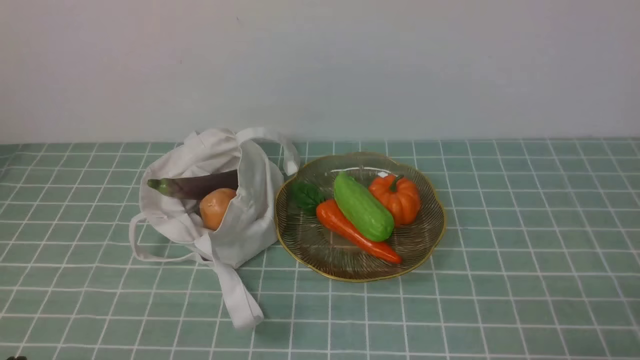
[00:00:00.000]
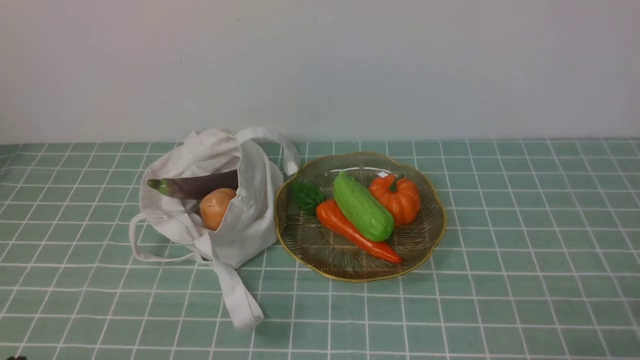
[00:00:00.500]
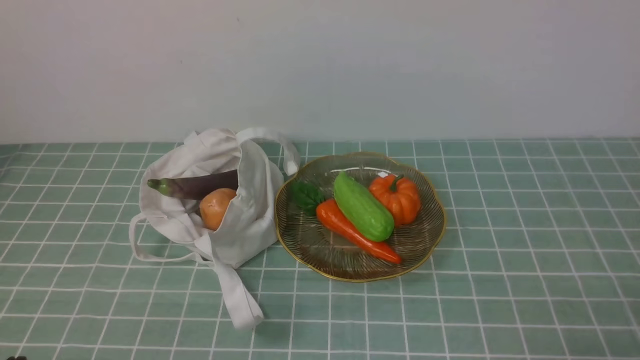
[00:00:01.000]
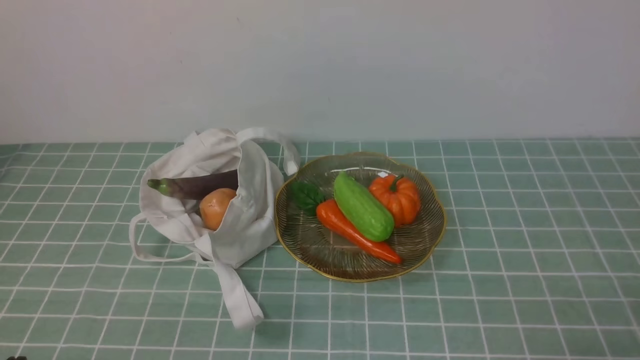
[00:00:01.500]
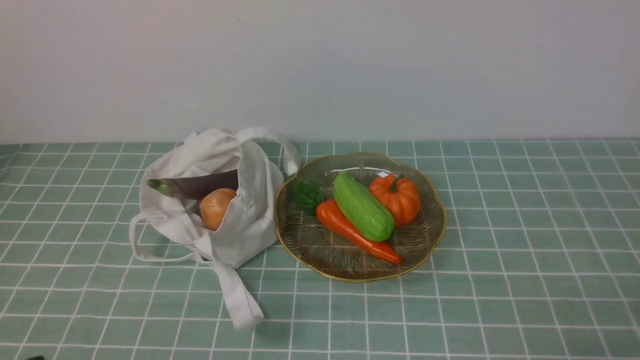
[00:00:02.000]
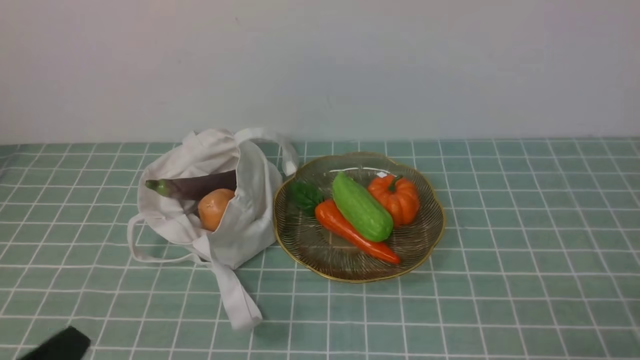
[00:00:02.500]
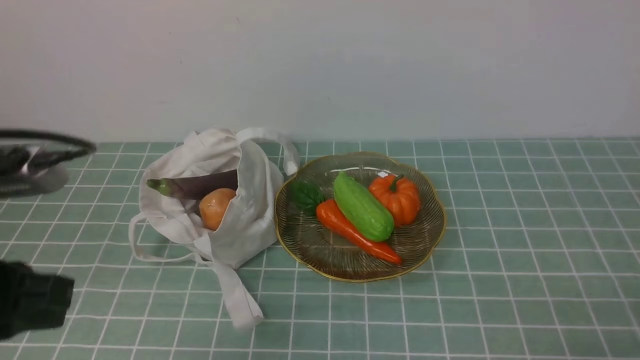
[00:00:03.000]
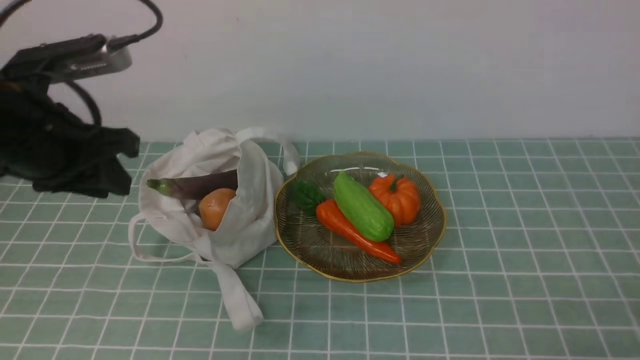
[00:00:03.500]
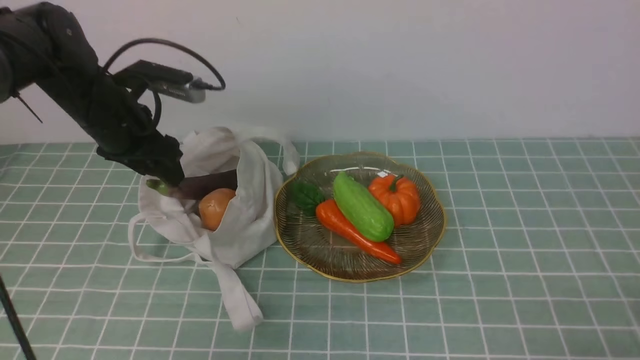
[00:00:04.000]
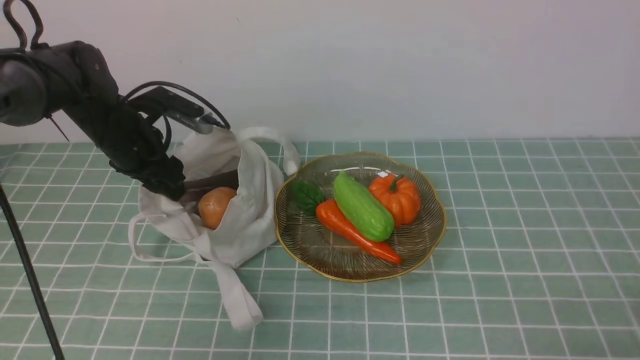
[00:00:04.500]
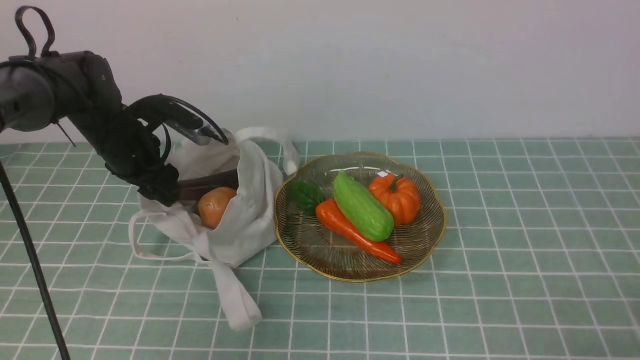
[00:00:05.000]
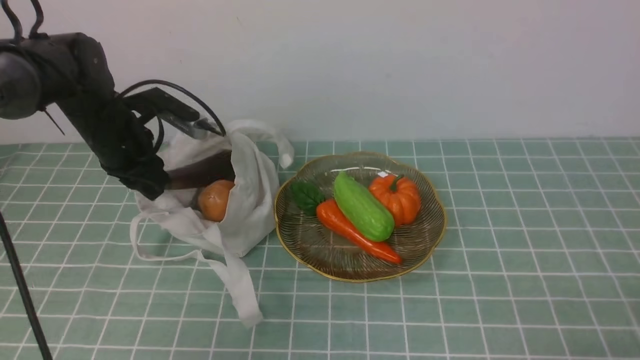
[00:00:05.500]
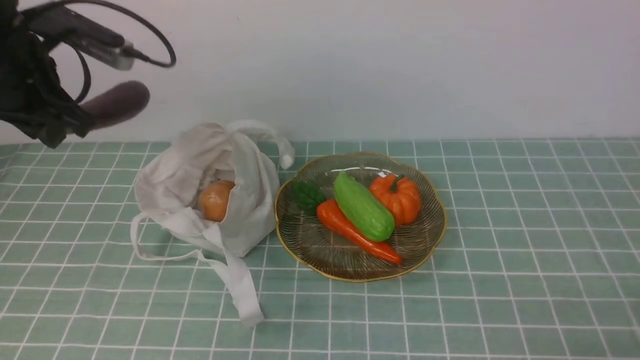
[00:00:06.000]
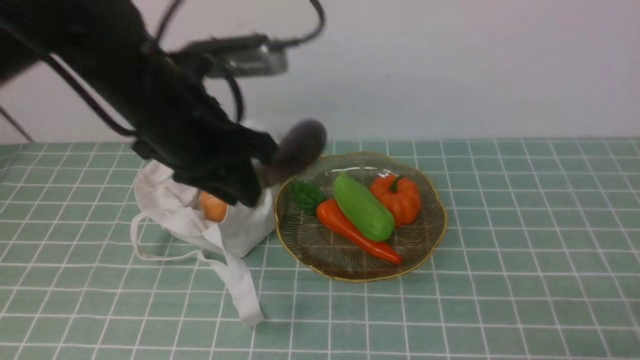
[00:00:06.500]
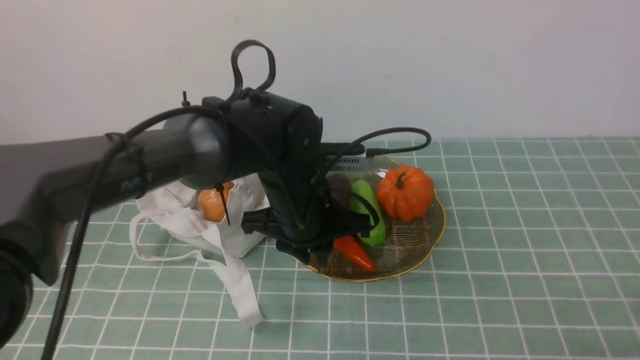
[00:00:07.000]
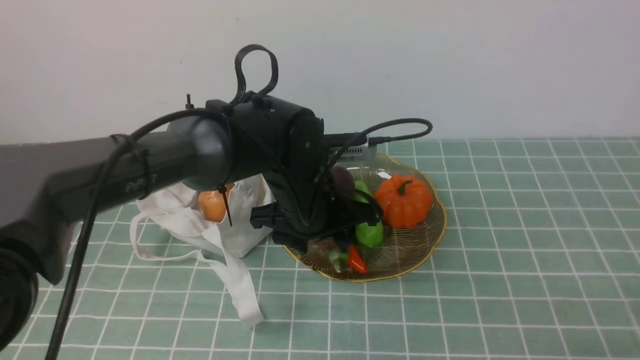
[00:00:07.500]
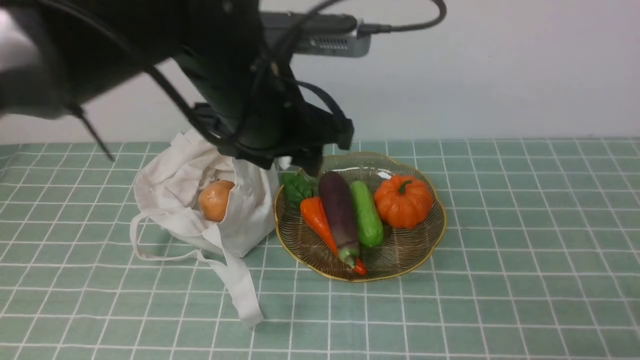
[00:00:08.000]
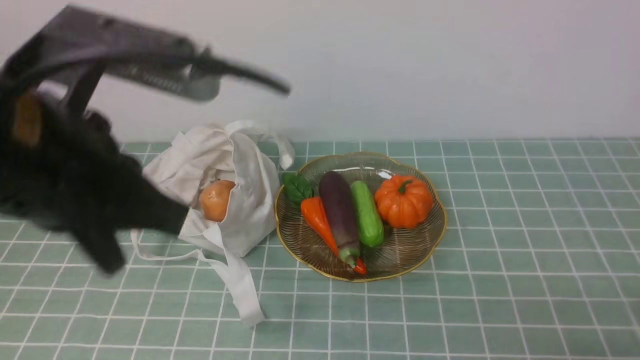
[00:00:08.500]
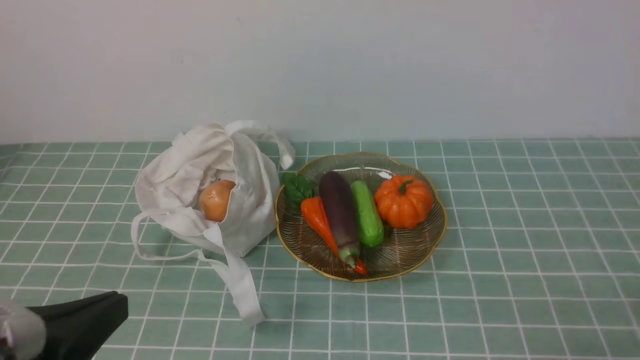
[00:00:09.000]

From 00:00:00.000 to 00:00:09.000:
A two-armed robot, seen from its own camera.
Task of the whole recording: take vegetables from cloth bag on blue coffee tablecloth place on plate.
Step, from 00:00:00.000 to 00:00:05.000: Grasp the eggplant with left gripper.
Step, from 00:00:05.500 to 00:00:07.500: Place the eggplant on the plate with left gripper.
From 00:00:02.000 to 00:00:04.500: The left gripper heads forward, covering about 40 cm, and opens its fingers.
From 00:00:04.500 to 00:00:07.000: The left gripper moves to the right and backward, roughly 25 cm, and closes up.
From 00:00:07.000 to 00:00:09.000: The left gripper is displaced backward and to the left by approximately 30 cm, and opens, then closes again.

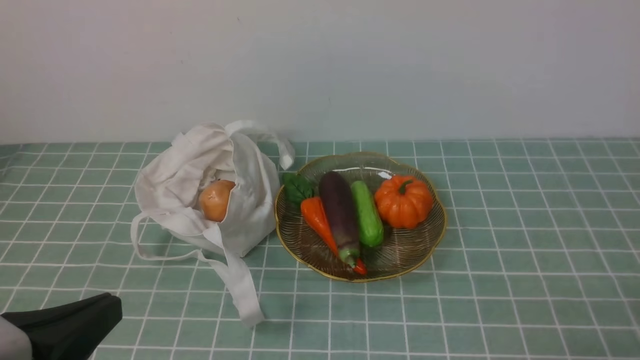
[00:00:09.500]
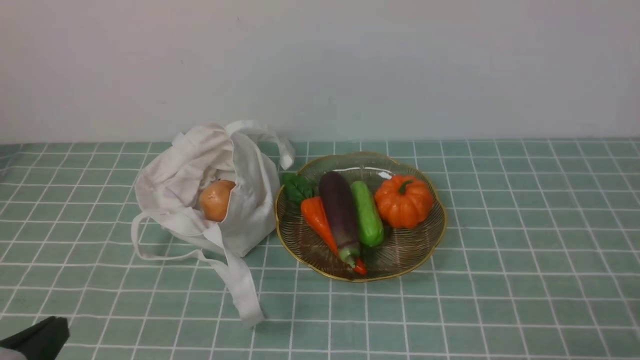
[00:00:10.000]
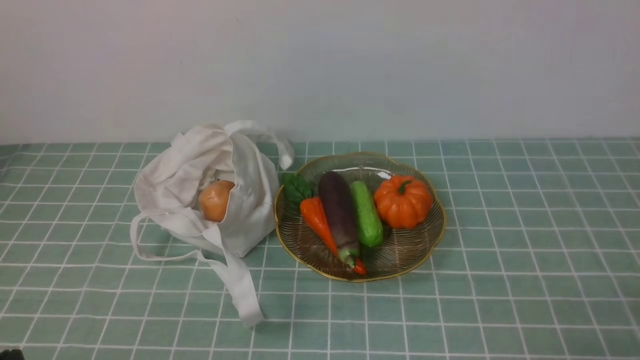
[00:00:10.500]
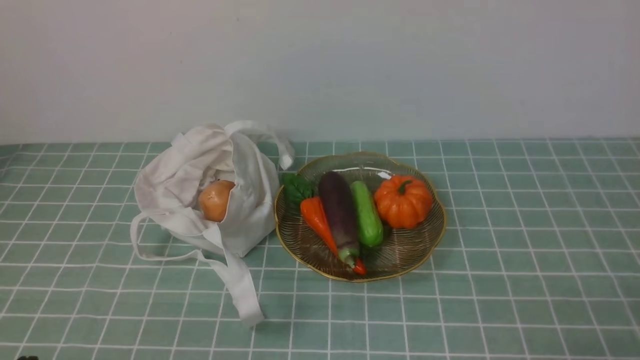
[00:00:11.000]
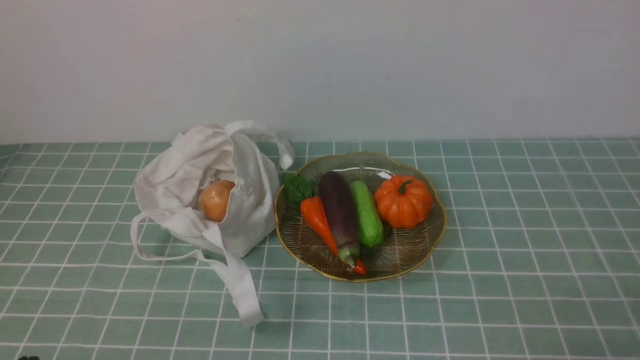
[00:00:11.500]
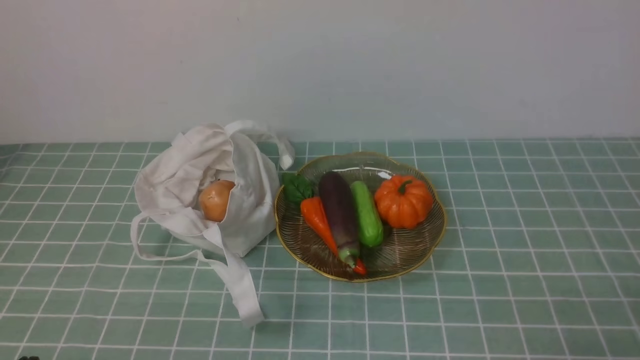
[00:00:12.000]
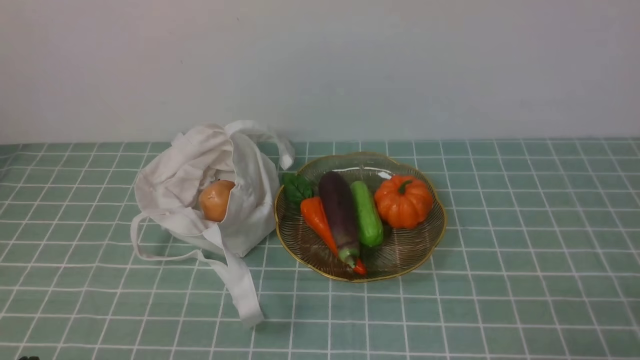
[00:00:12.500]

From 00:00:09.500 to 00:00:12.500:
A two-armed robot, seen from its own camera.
Task of the whole recording: take vegetables from cloth bag on blue coffee tablecloth place on plate.
From 00:00:09.500 to 00:00:11.000: The left gripper goes some 10 cm downward.
From 00:00:11.000 to 00:00:12.500: Neither gripper changes place.

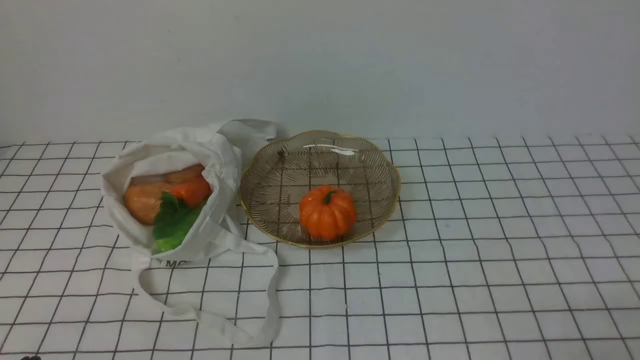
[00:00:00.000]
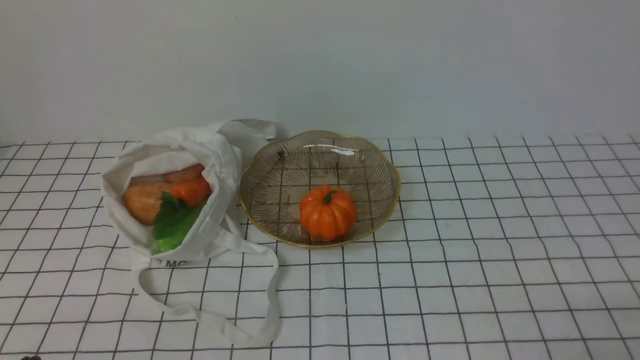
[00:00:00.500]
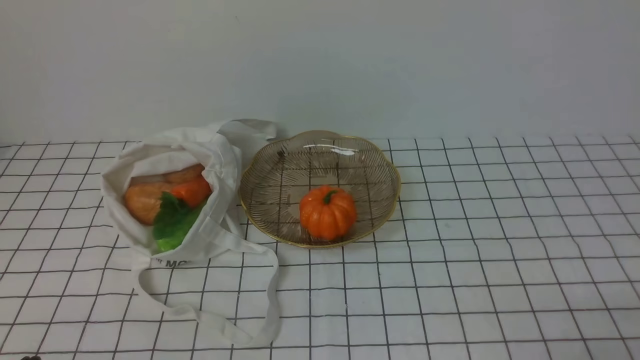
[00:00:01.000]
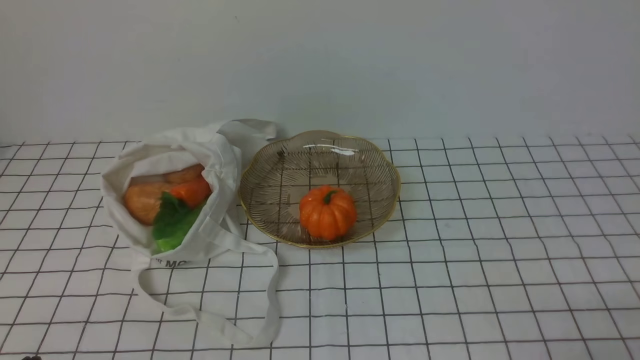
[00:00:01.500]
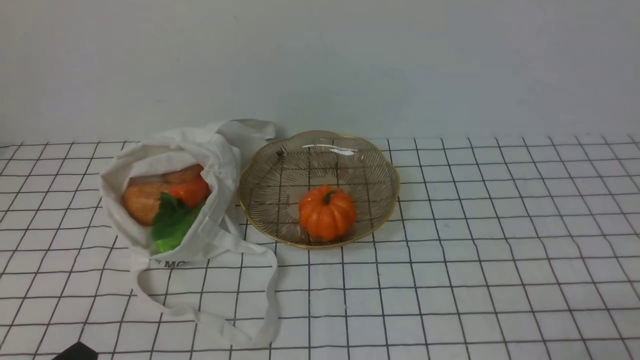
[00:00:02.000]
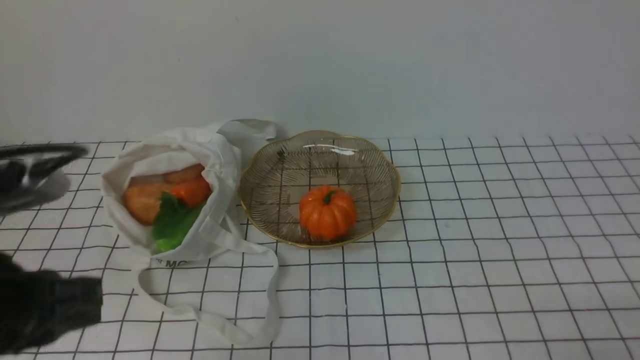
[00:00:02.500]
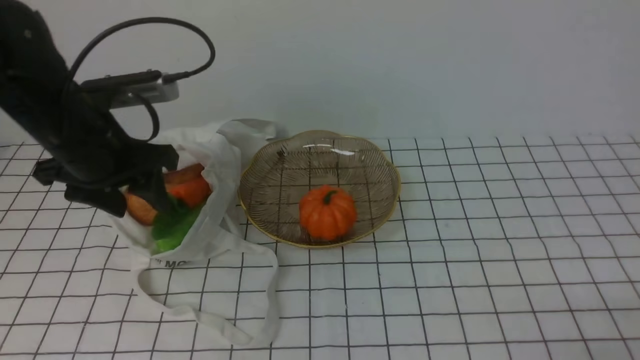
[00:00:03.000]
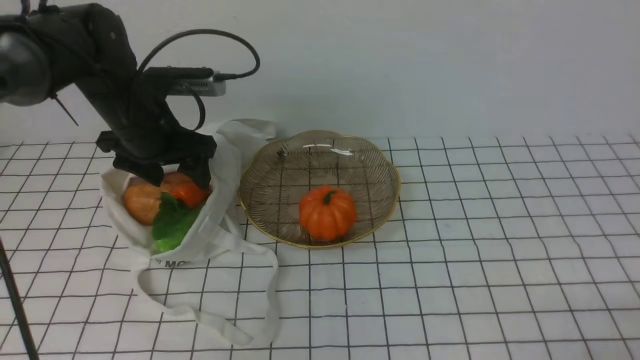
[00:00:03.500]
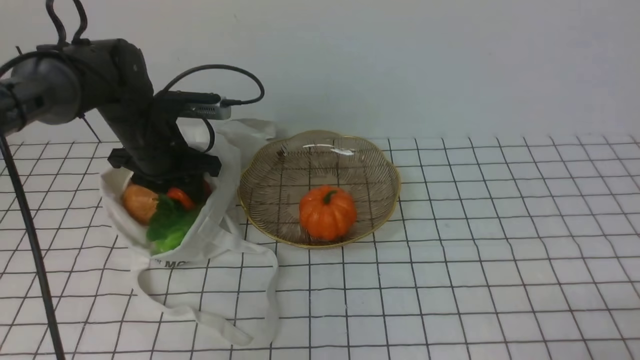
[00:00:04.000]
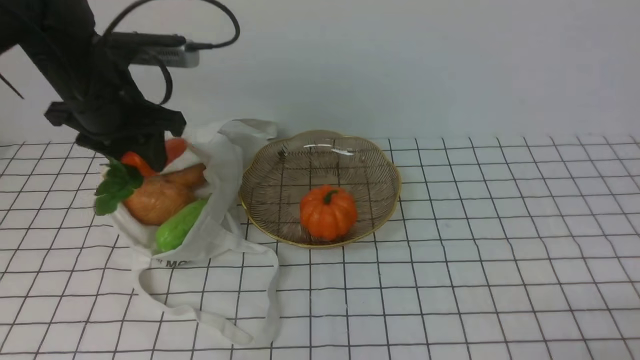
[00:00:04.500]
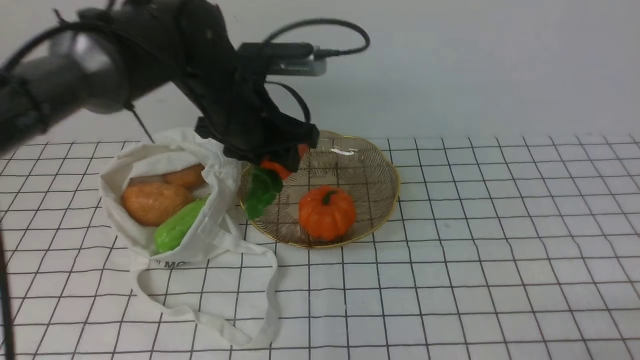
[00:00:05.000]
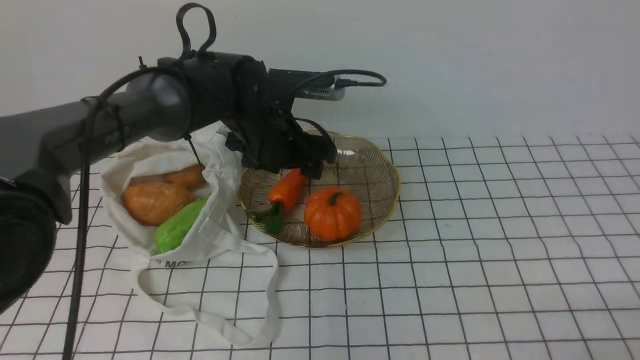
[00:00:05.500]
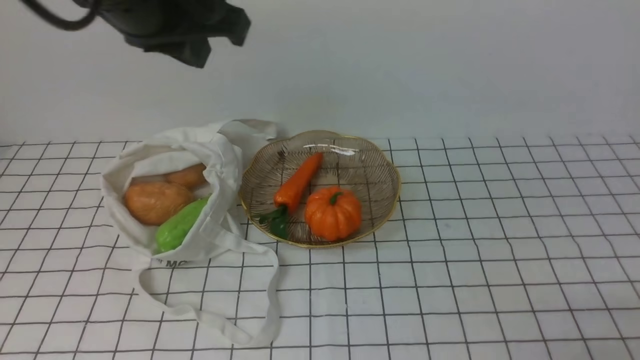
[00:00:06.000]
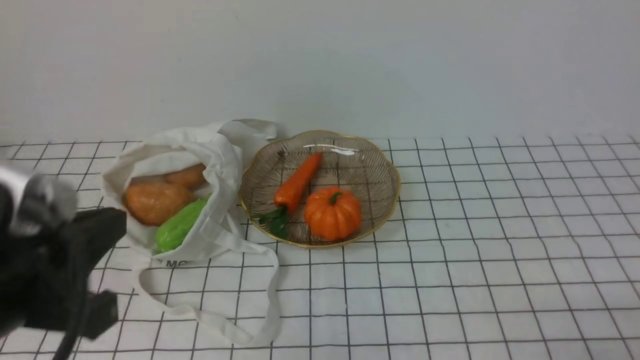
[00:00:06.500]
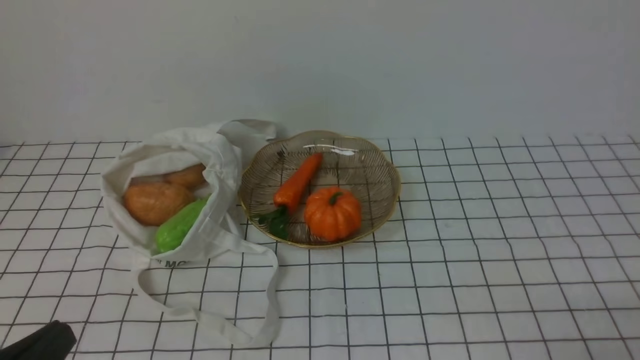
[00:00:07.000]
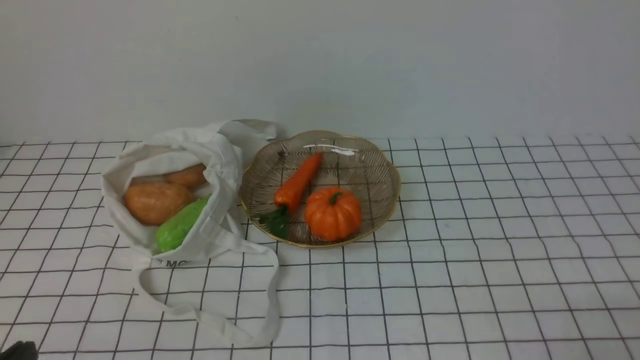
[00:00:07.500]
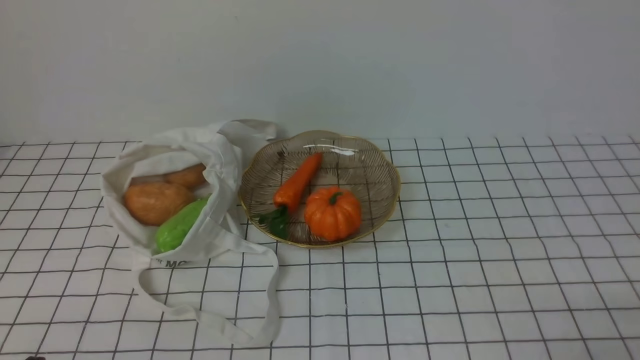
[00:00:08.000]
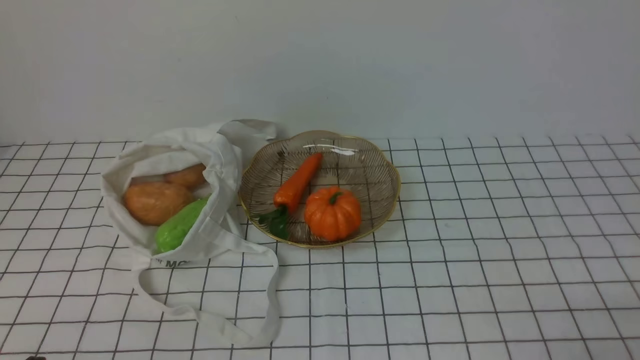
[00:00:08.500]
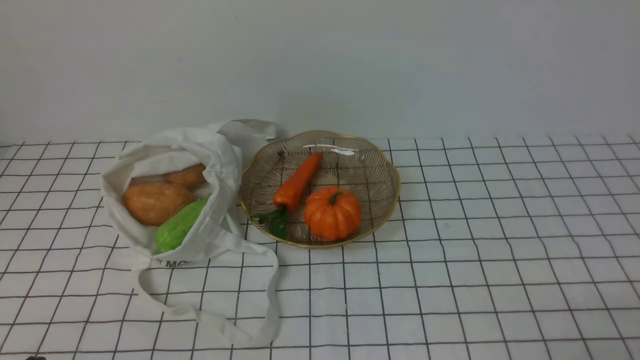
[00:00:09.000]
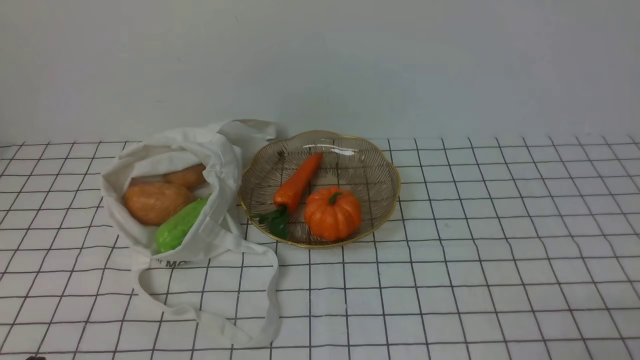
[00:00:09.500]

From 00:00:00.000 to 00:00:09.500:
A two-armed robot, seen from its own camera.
Task of the whole recording: take vegetables from bag on white checkered tablecloth place on plate.
Step, from 00:00:00.000 to 00:00:04.000: Grasp the carrot with left gripper.
Step, from 00:00:04.500 to 00:00:05.500: Place the carrot on the plate with left gripper.
From 00:00:02.000 to 00:00:04.000: The left gripper heads forward, covering approximately 40 cm, and opens its fingers.
From 00:00:04.000 to 00:00:05.500: The left gripper goes some 15 cm to the right.
From 00:00:05.500 to 00:00:07.500: The left gripper is displaced backward and to the left by about 40 cm, and closes.
